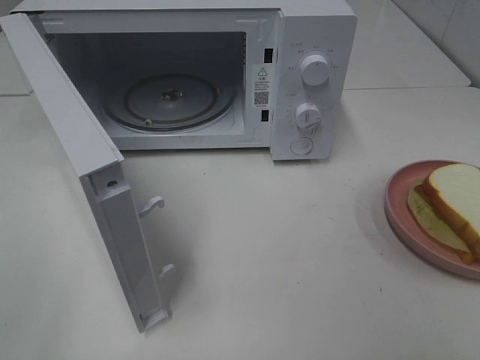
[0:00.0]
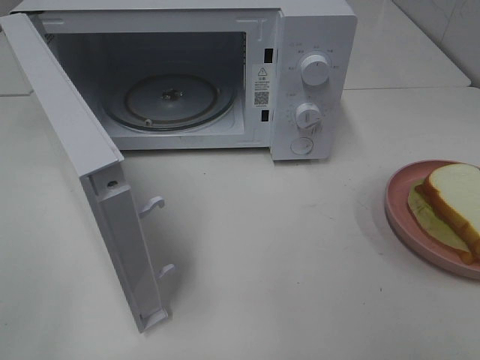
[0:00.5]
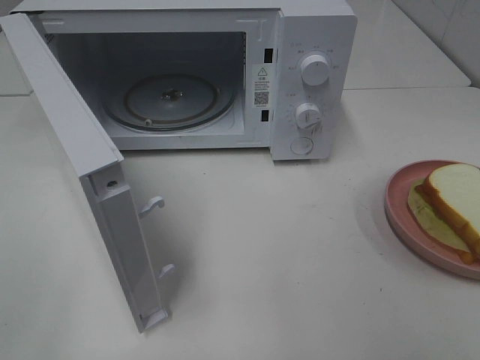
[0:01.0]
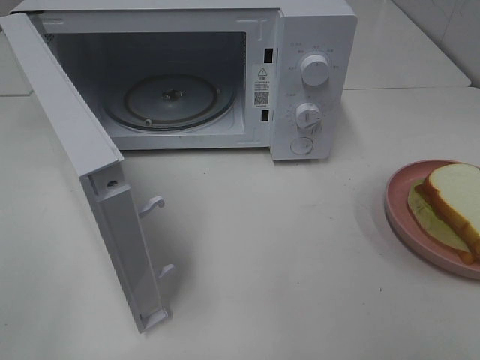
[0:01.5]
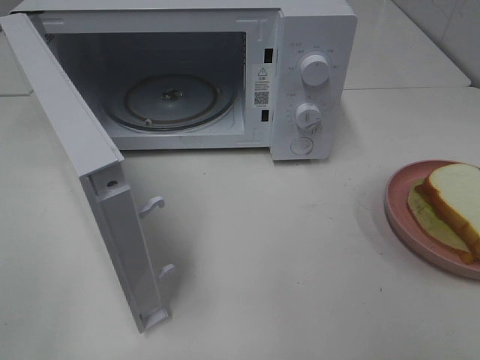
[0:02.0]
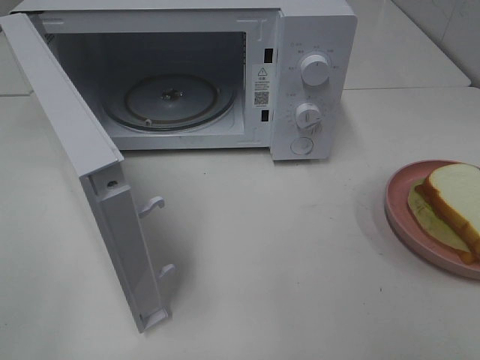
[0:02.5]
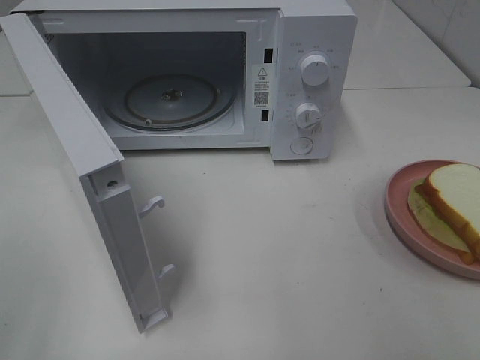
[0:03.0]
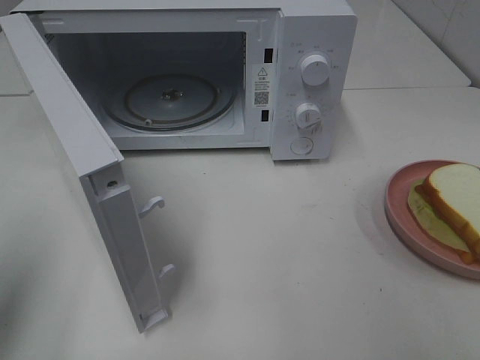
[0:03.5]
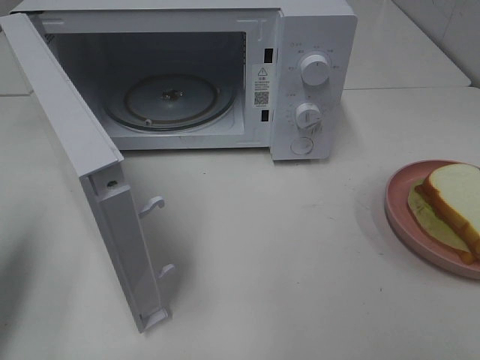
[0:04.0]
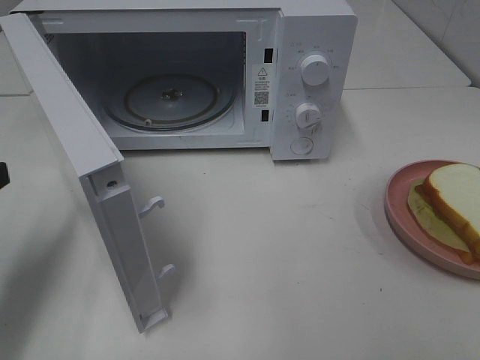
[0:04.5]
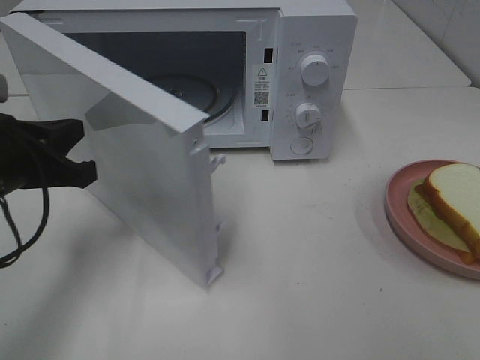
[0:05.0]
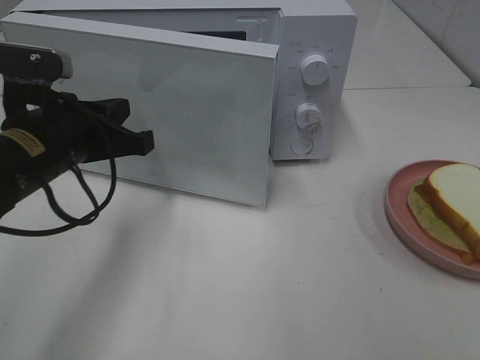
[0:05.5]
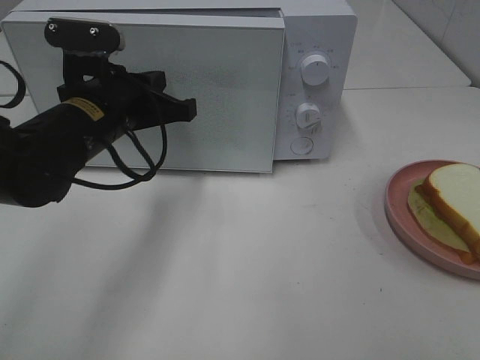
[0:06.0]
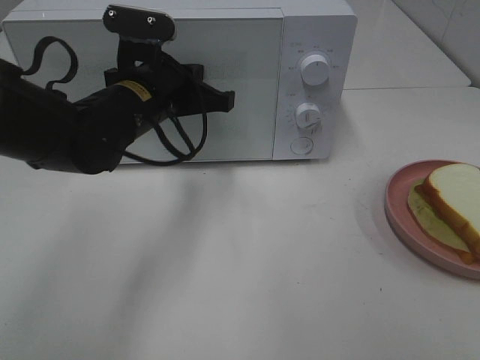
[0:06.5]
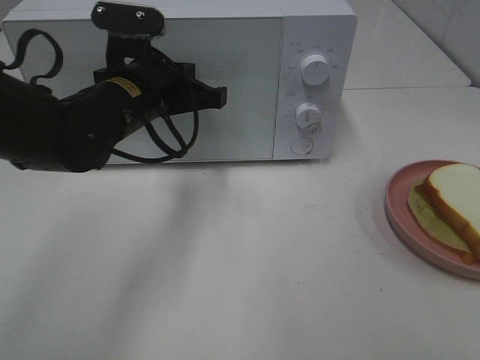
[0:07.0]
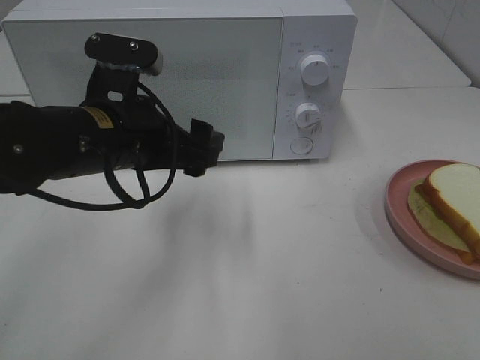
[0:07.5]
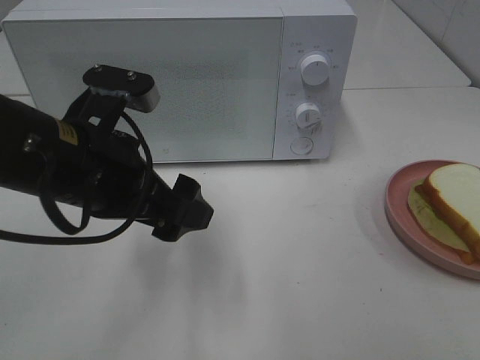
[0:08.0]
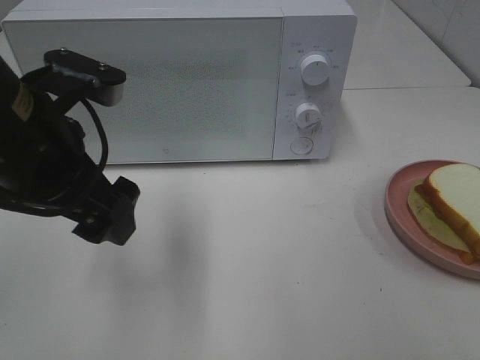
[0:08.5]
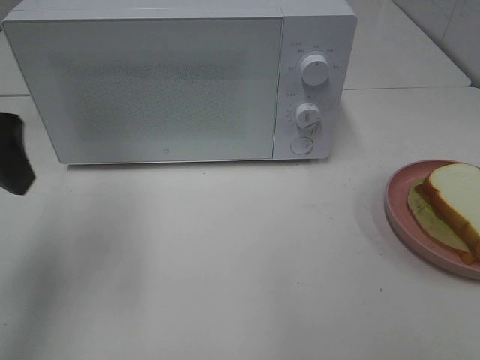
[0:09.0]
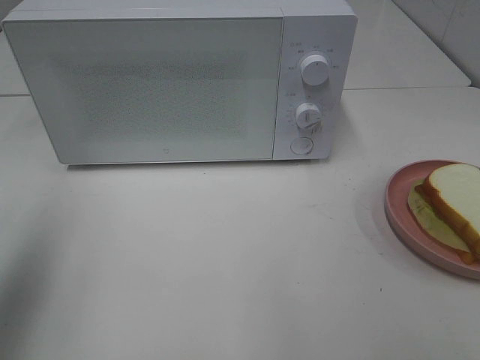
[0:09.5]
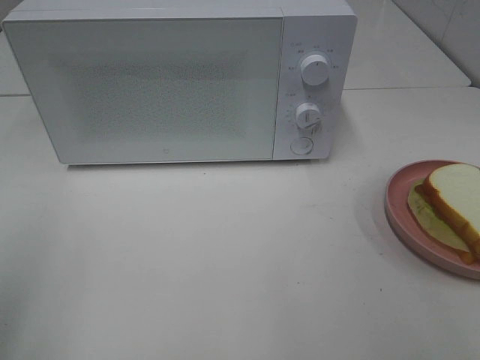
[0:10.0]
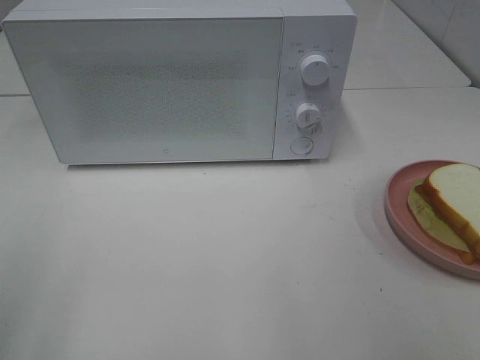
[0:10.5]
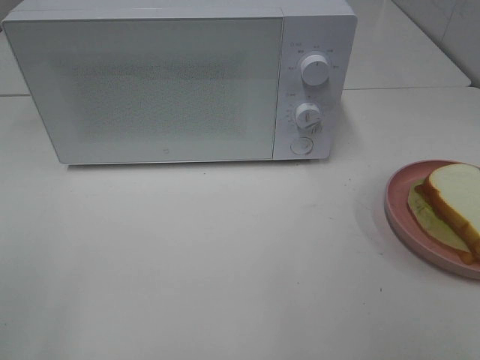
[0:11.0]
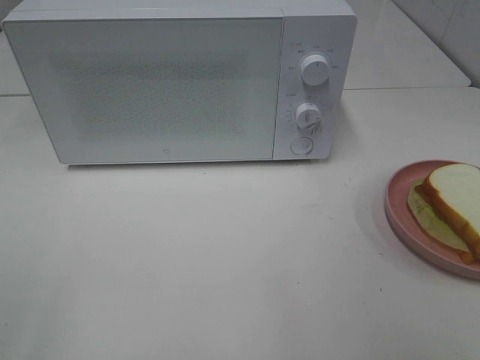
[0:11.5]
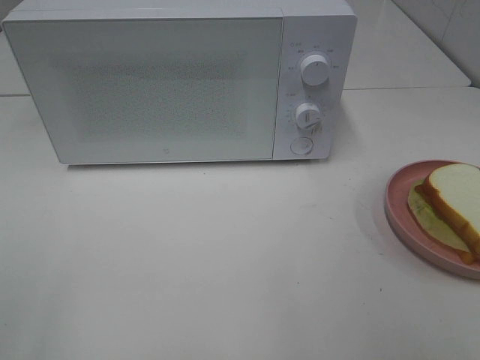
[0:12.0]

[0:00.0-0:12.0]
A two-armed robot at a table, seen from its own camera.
Task of the whole recording: Heat Sandwich.
Step, 0:00.0 to 0:07.0: Left hand: close the microwave door.
0:02.0 to 0:04.0: The left gripper heads forward, covering some 15 cm, and closes.
0:04.0 to 0:06.0: The left gripper shifts approximately 25 cm to the right and forward.
0:06.0 to 0:08.0: The left gripper travels backward by about 10 cm, and opens its fingers.
0:08.0 to 0:10.0: The left gripper is displaced to the left, backward and upward by approximately 25 cm.

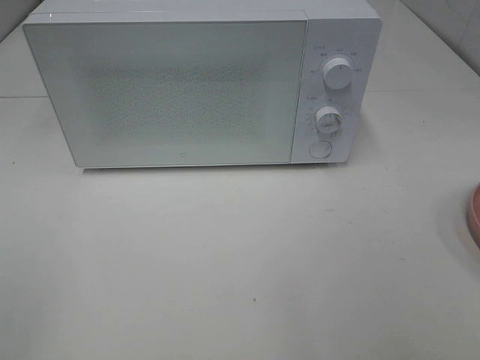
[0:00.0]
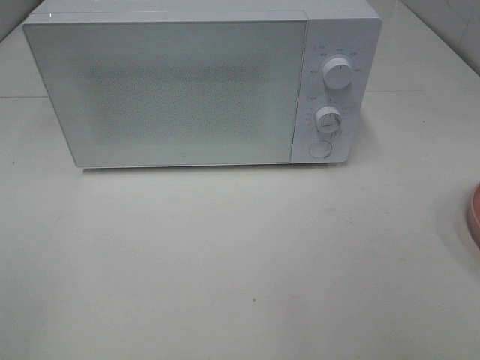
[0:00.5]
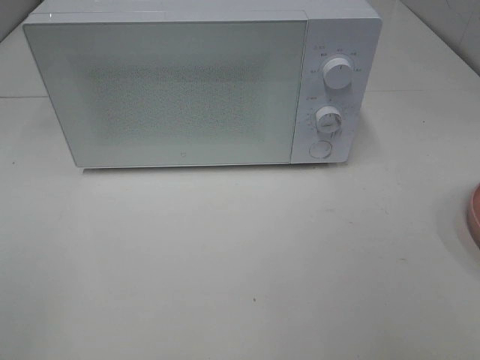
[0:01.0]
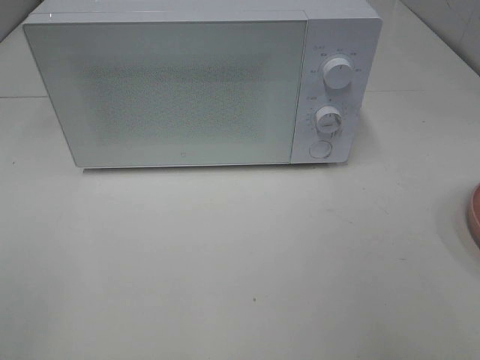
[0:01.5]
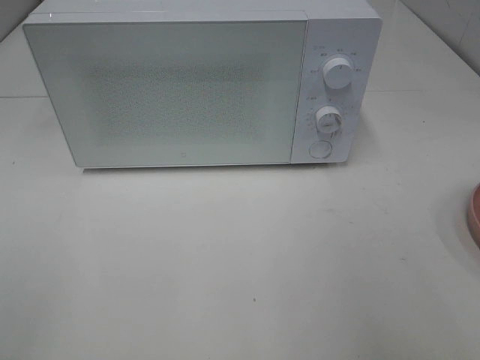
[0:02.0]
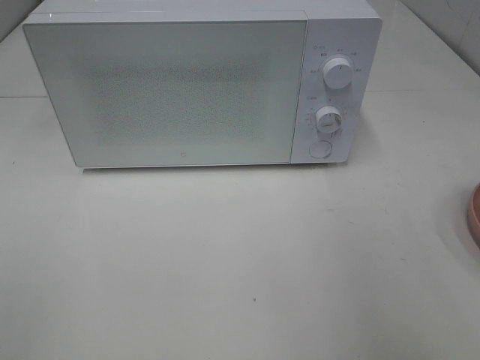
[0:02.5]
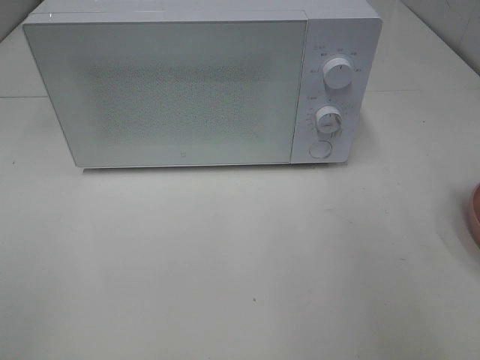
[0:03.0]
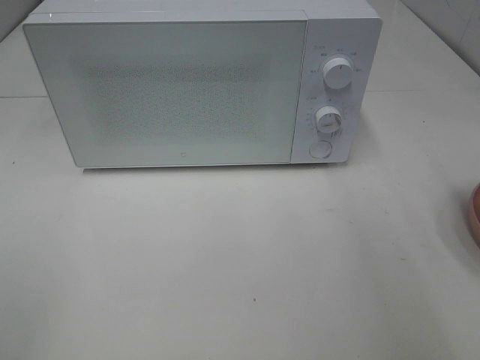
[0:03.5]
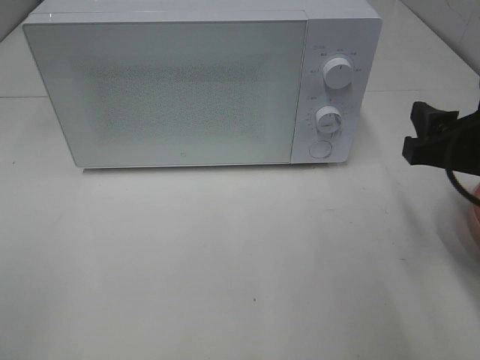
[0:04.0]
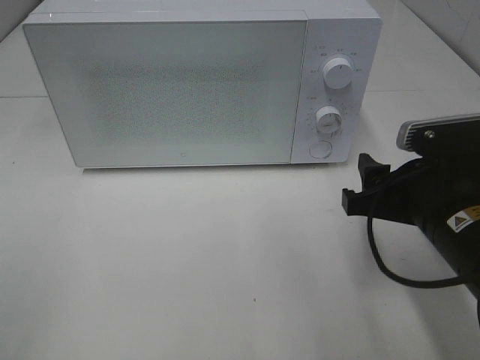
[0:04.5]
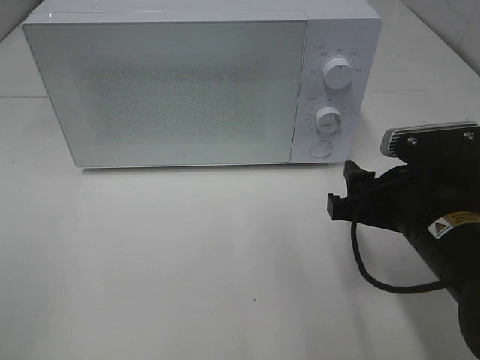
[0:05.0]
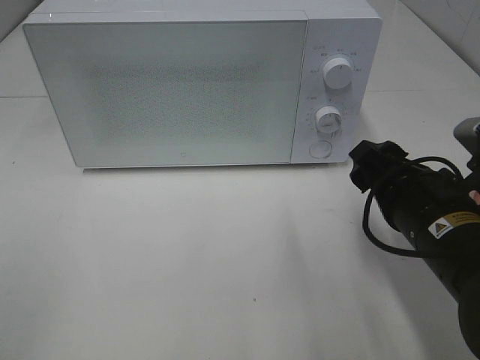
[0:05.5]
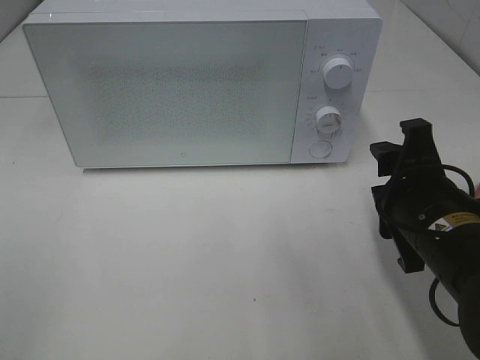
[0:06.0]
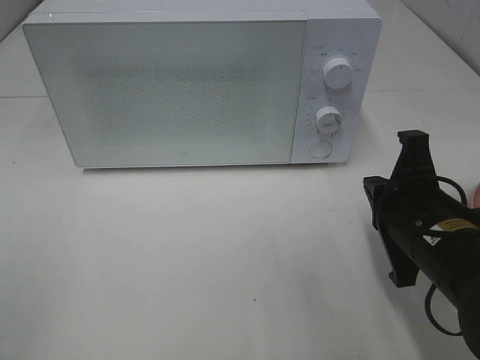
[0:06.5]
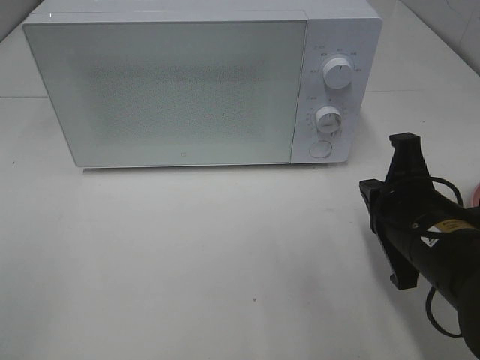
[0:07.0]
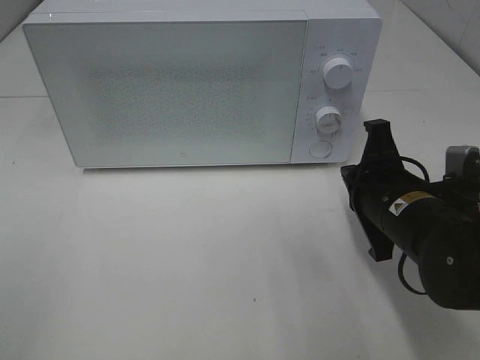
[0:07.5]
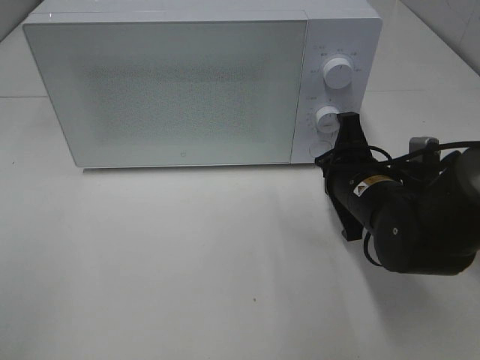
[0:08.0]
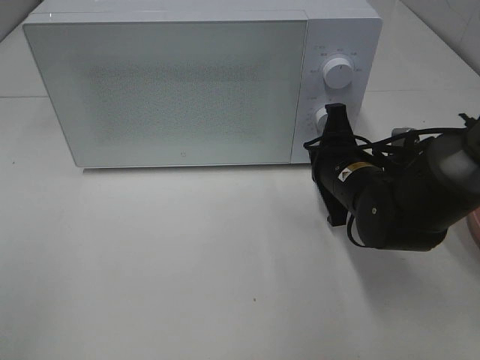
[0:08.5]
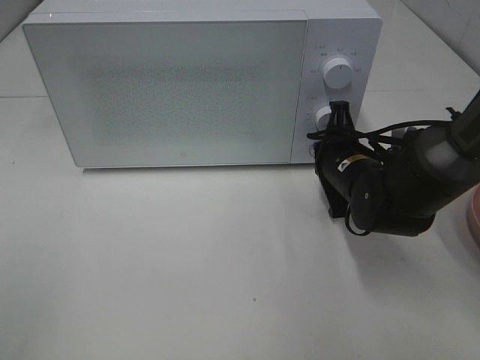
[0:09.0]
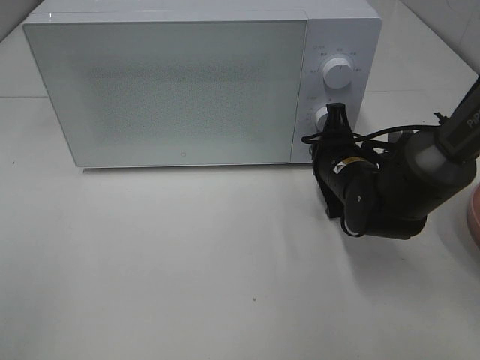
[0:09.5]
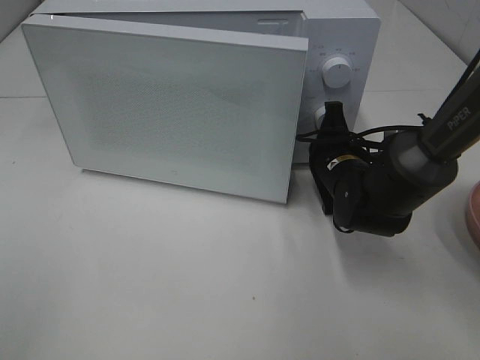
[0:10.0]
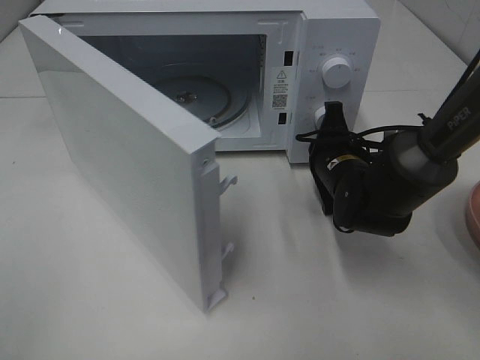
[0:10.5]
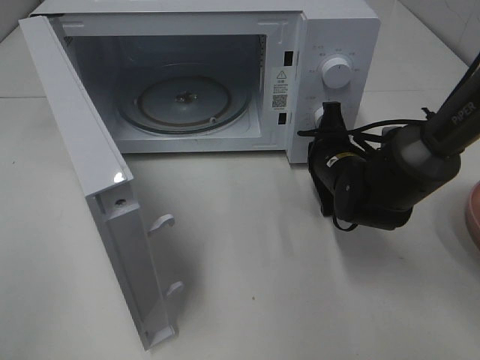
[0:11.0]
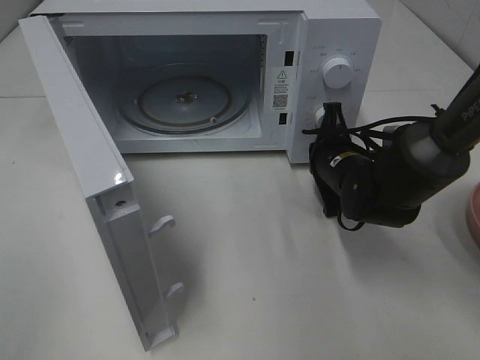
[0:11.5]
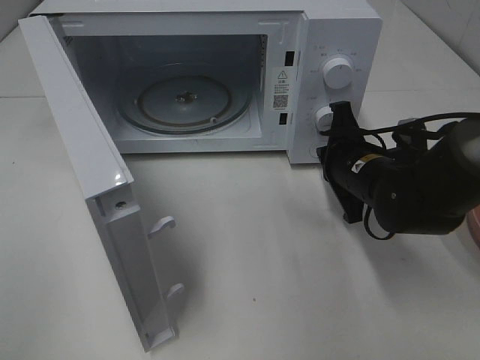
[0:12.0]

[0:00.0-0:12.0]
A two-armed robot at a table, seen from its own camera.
Task of the whole recording: Heat Sandwich.
0:02.0 to 0:04.0: The right gripper moves downward, forward and to the left, approximately 20 cm.
0:04.0 to 0:06.0: The right gripper travels to the left and downward by roughly 10 cm.
0:06.0 to 0:08.0: The right gripper is displaced forward by approximately 10 cm, and closes up.
0:08.0 to 0:10.0: The right gripper is displaced forward by some 5 cm.

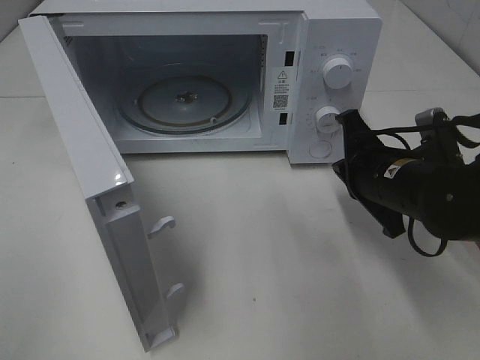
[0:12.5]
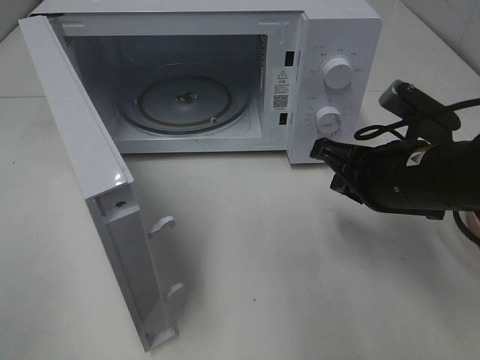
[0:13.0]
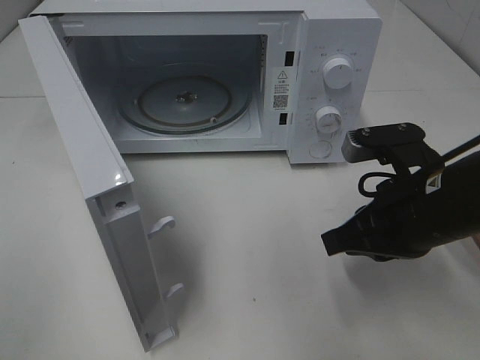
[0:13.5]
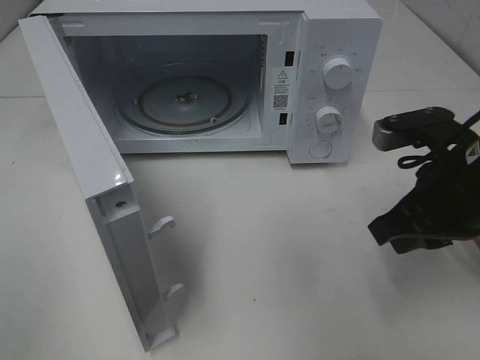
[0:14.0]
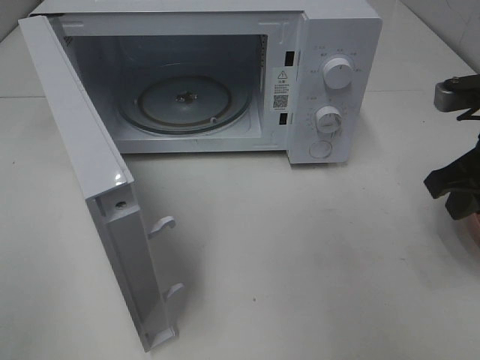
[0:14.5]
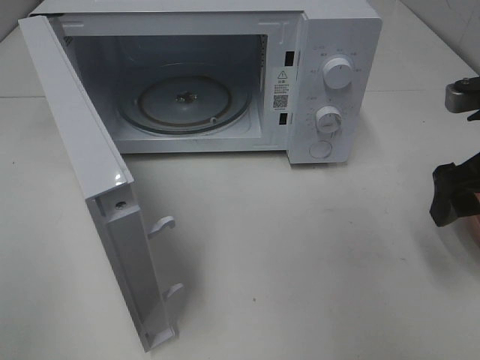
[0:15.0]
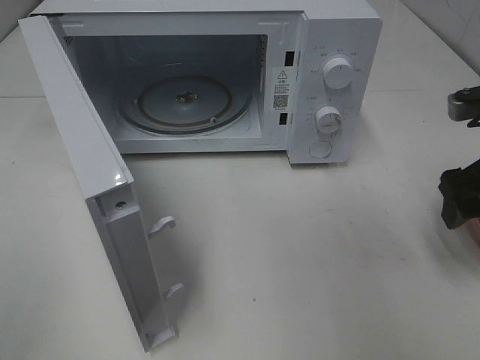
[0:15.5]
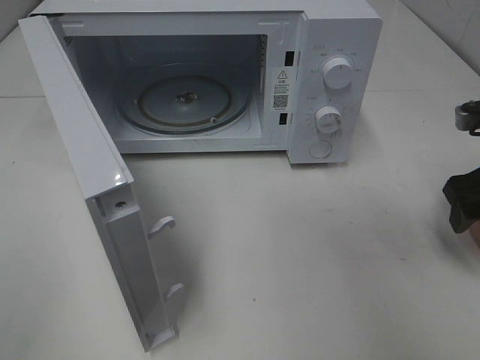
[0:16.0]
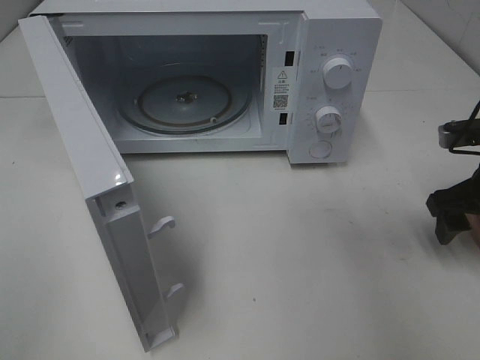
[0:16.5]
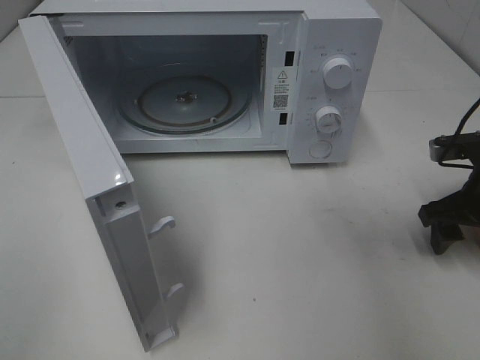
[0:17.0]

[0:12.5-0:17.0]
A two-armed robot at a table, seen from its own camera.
Task of the whole recording: Heat Sandwich.
0:12.5 to 0:14.5: The right gripper heads to the right and upward, covering some 10 cm, and opens.
0:14.5 to 0:17.0: The right gripper moves downward, roughly 10 cm, and opens up.
